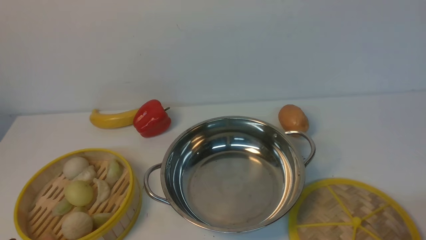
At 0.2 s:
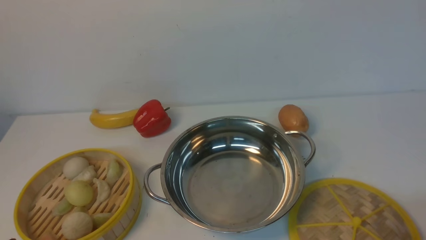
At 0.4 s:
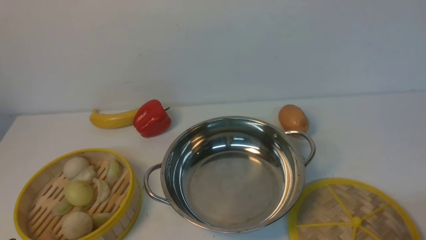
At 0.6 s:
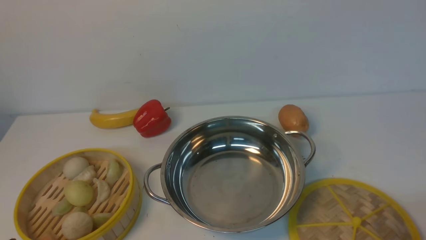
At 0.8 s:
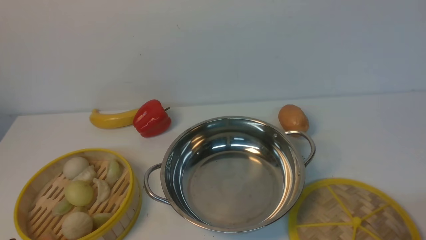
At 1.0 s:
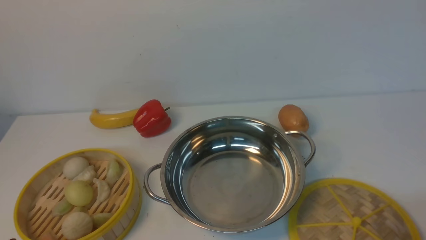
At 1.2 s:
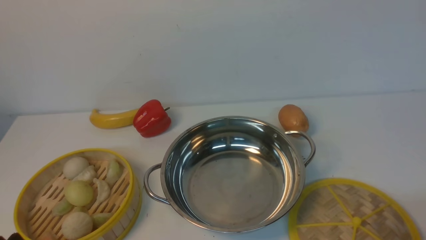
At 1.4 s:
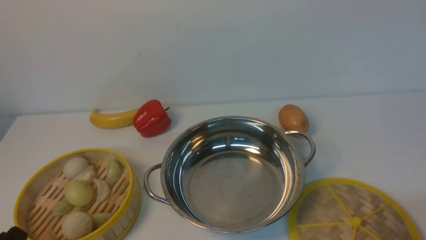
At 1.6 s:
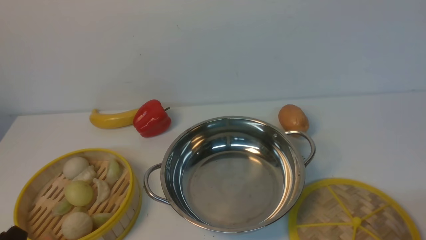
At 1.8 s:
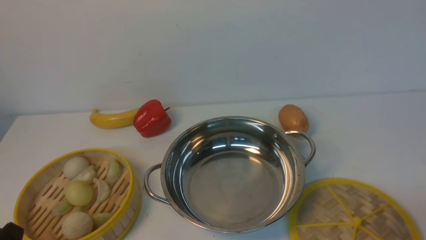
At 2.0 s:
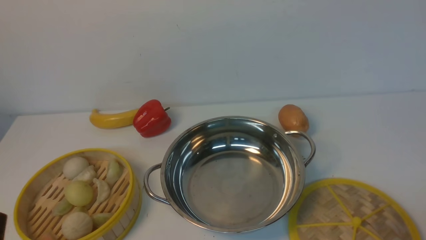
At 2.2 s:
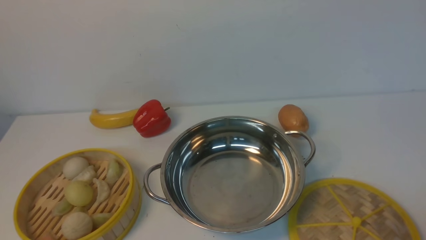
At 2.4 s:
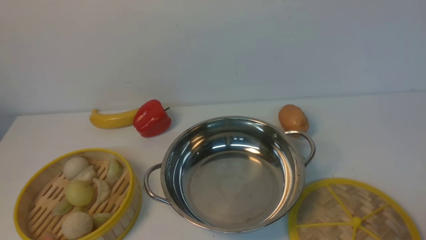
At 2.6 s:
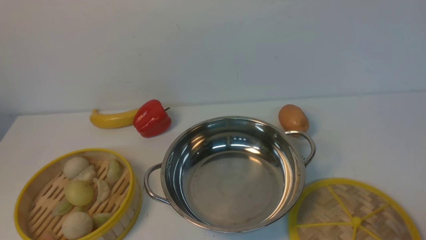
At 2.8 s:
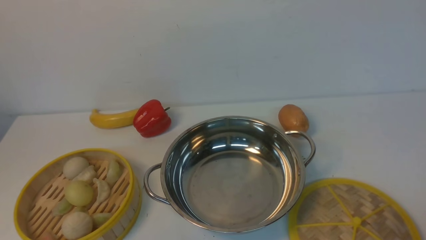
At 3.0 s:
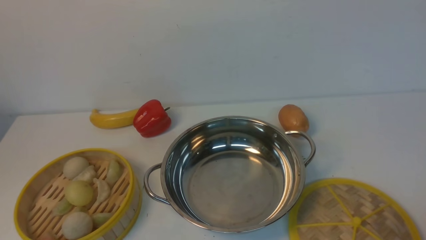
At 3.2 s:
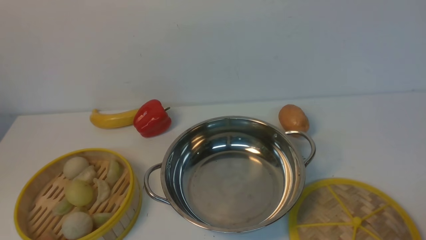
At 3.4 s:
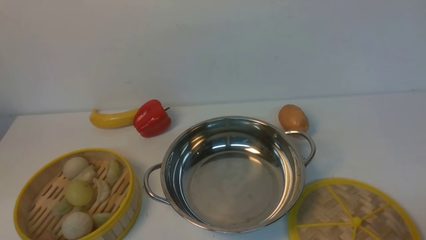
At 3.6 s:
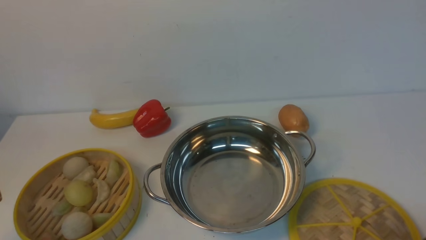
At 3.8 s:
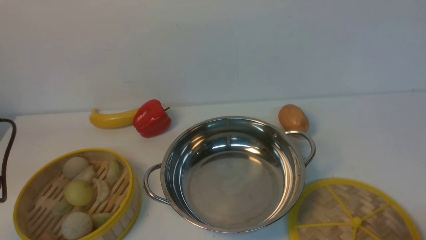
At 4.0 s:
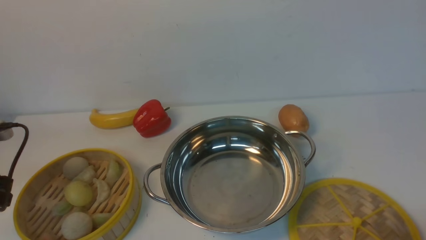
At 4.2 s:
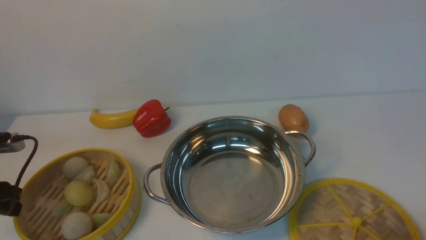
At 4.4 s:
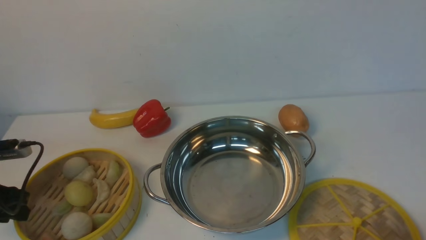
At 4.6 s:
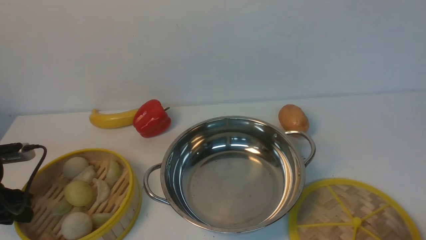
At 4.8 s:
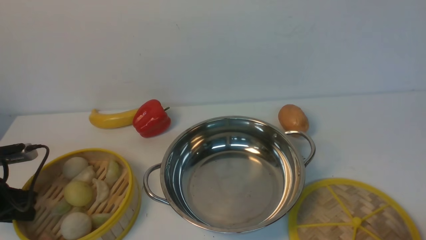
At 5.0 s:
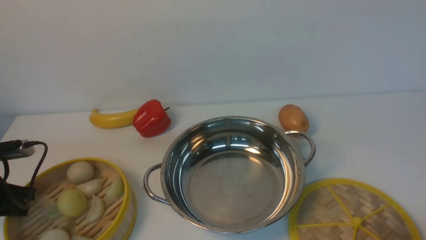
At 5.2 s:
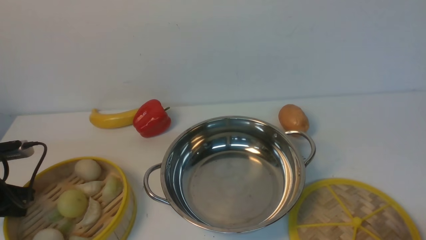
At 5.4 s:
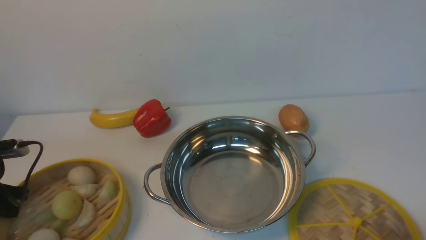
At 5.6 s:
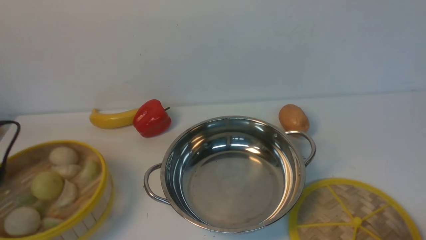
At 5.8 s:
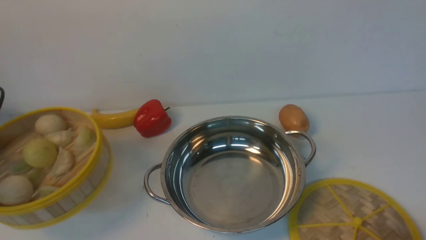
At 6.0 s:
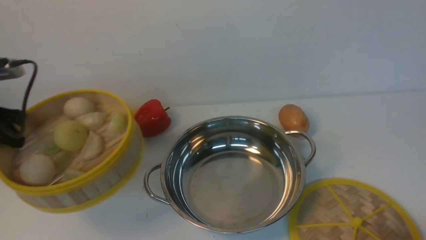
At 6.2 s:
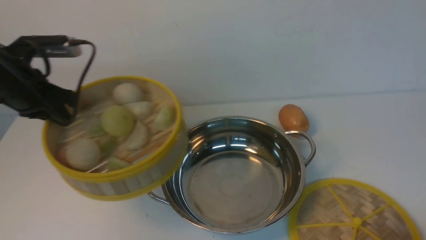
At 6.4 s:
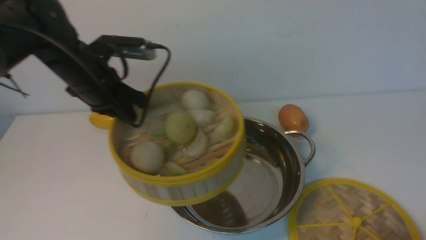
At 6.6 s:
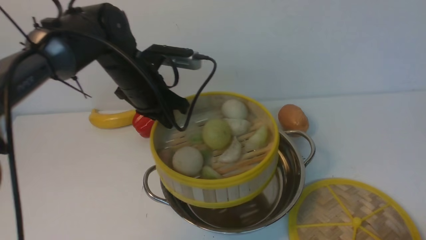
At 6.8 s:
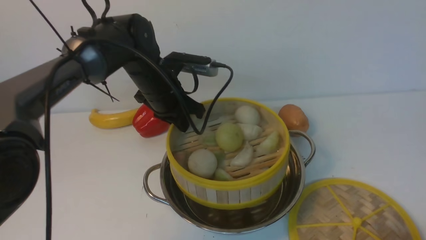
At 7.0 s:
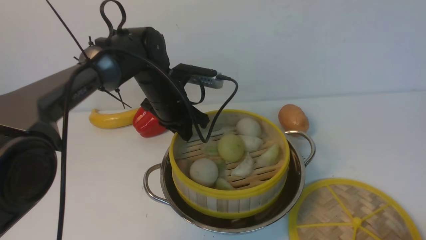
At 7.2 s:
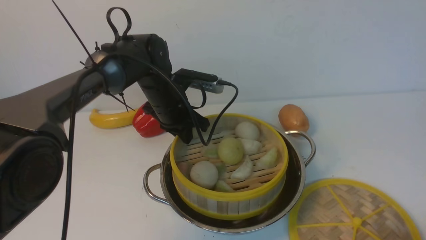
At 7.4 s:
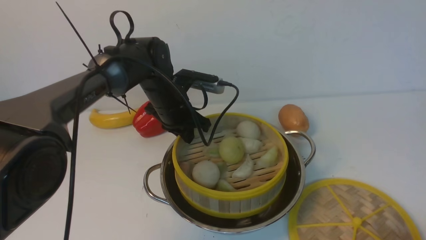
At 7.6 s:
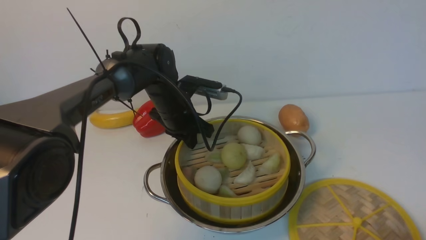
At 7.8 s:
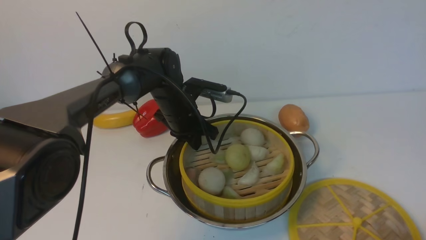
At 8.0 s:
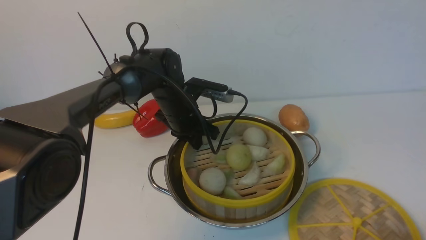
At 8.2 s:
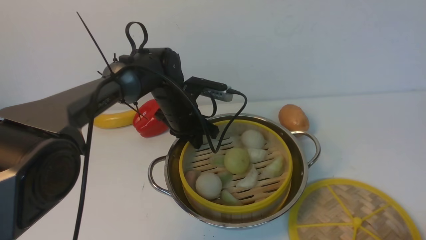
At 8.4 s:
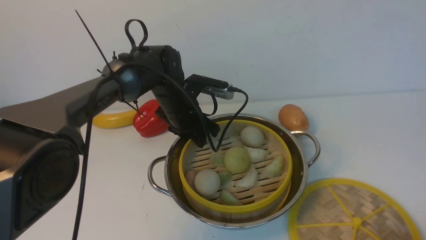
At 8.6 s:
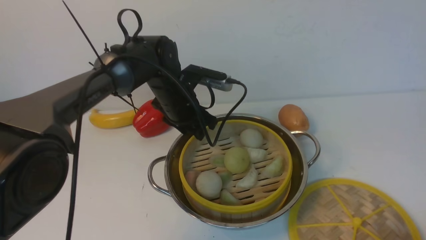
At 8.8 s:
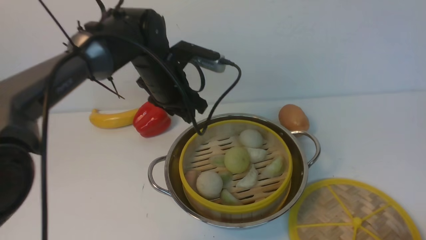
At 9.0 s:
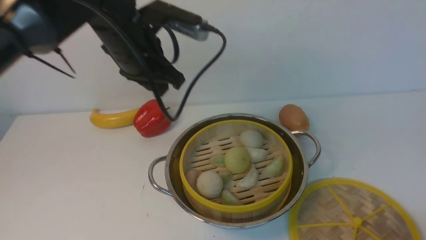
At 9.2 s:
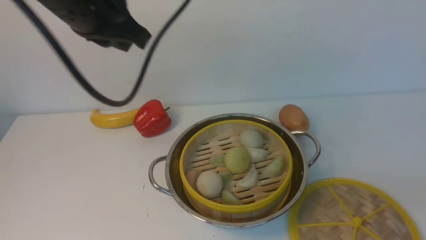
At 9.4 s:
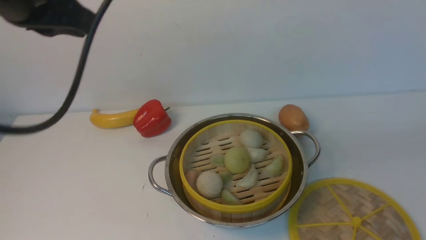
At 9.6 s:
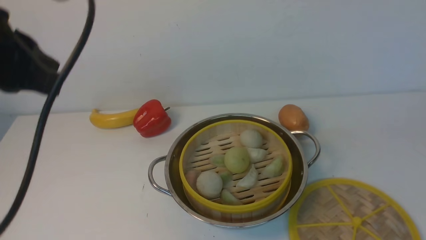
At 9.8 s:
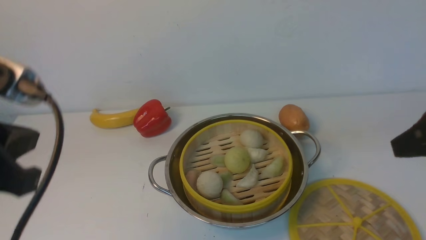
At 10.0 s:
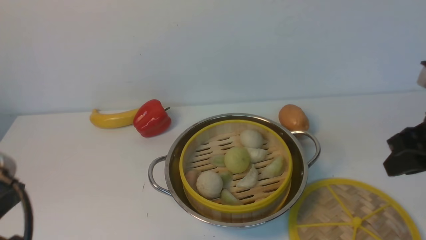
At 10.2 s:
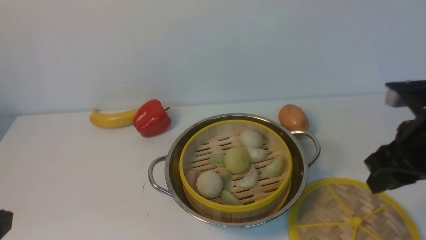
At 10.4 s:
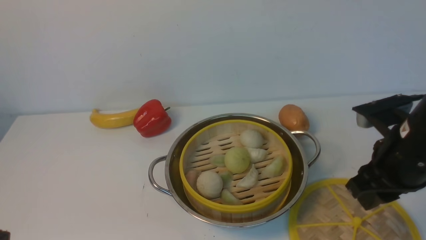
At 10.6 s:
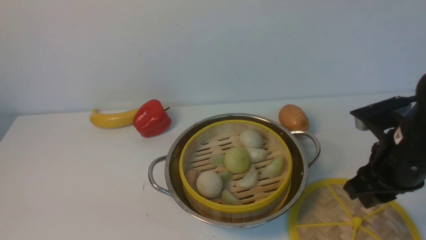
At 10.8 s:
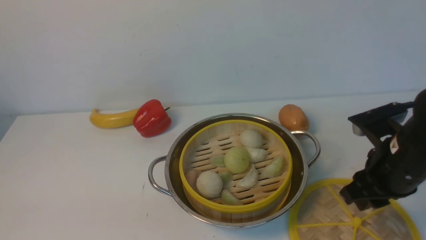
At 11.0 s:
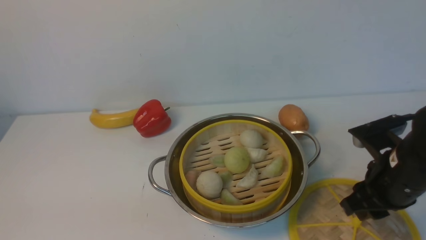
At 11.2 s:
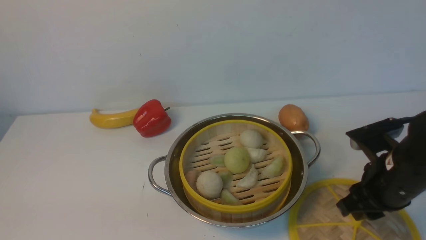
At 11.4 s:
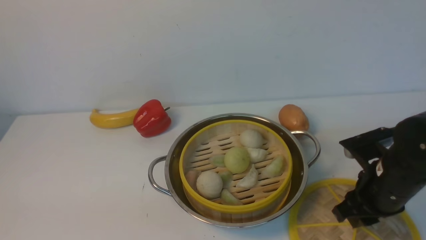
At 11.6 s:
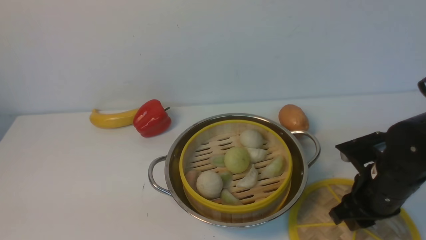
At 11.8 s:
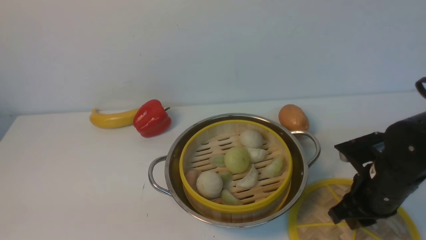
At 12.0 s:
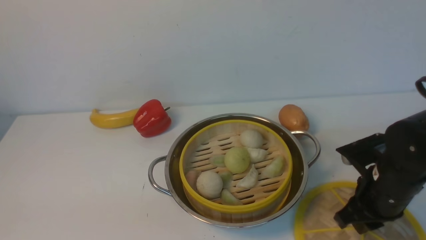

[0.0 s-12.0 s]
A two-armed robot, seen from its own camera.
Task of the whole recording: place the steamer in the pot on the white table, and put the lid on the steamer.
Step, 0.0 to 5.8 s: use the left arm to lift the steamer closest to it.
Step, 6.0 to 8.8 s: use the left arm to put the steamer into the iron steamer pot in the middle.
3.0 to 4.4 s: The left gripper moves downward, forward and to the left, about 25 cm, and opens up.
4.4 to 6.0 s: The left gripper shifts roughly 15 cm upward and forward, and closes up.
6.0 to 7.6 s: The left gripper heads to the right, covering about 25 cm.
7.6 to 9.0 s: The left gripper heads upward, covering approximately 20 cm, and opens up.
9.0 to 10.4 s: The left gripper shifts approximately 35 cm backward, and closes its fingers; the right gripper shifts about 20 cm forward.
10.4 to 12.0 s: The right gripper is displaced downward by some 10 cm.

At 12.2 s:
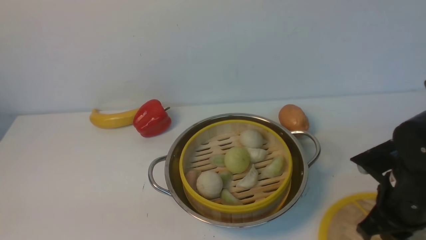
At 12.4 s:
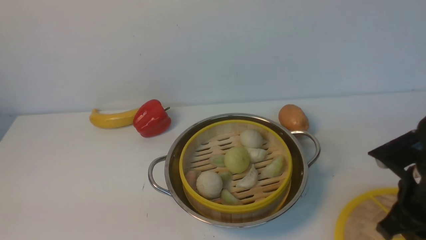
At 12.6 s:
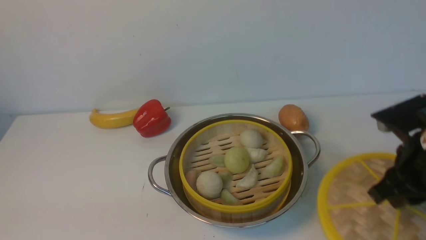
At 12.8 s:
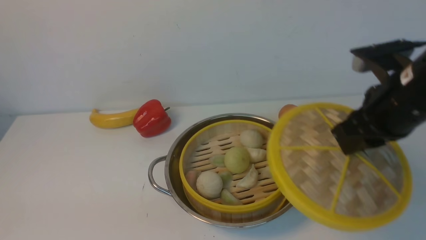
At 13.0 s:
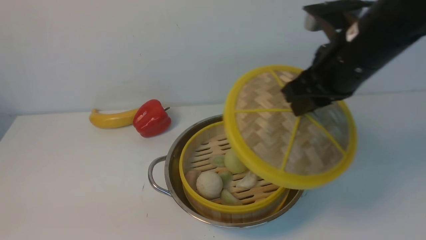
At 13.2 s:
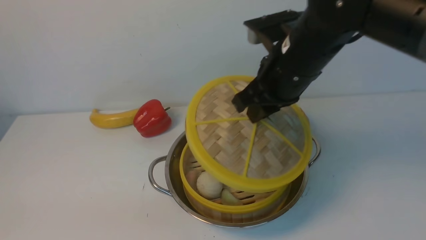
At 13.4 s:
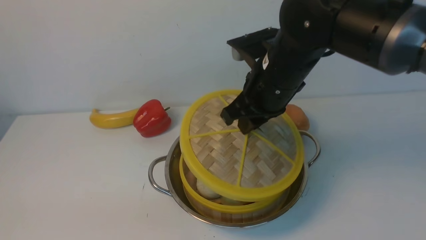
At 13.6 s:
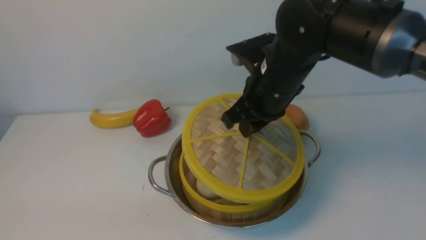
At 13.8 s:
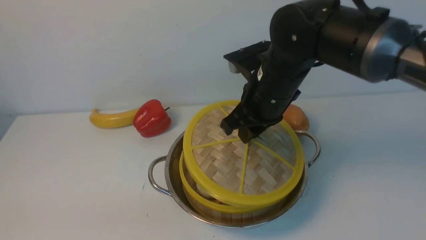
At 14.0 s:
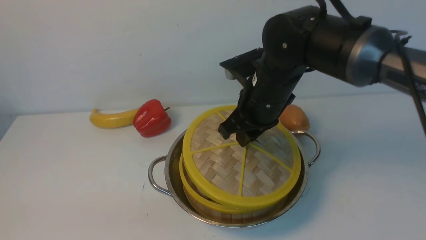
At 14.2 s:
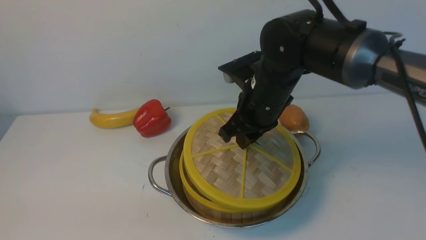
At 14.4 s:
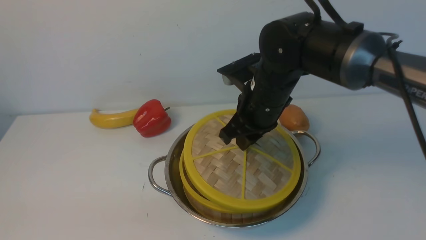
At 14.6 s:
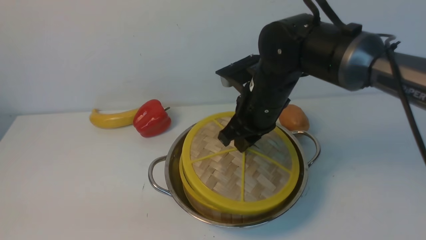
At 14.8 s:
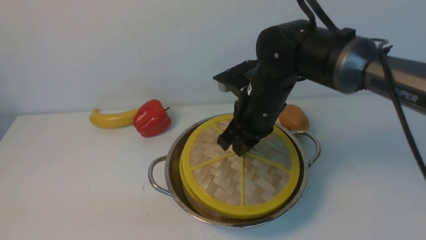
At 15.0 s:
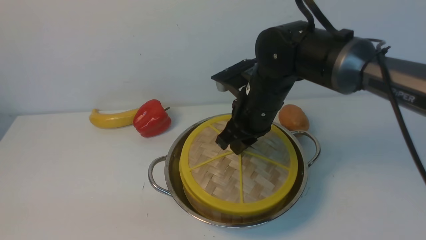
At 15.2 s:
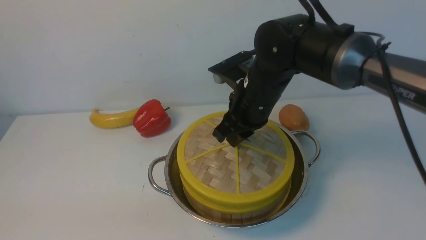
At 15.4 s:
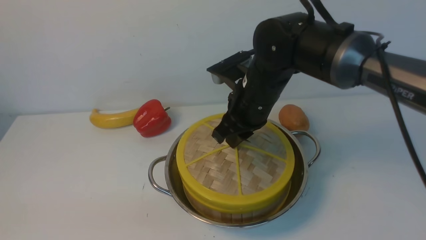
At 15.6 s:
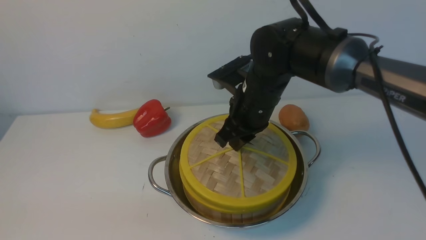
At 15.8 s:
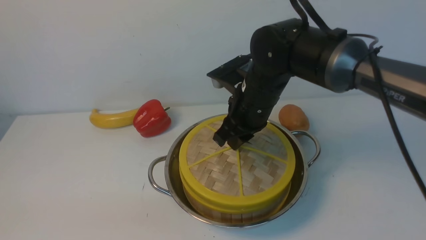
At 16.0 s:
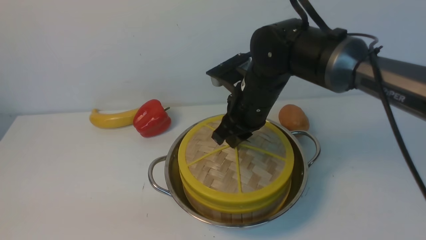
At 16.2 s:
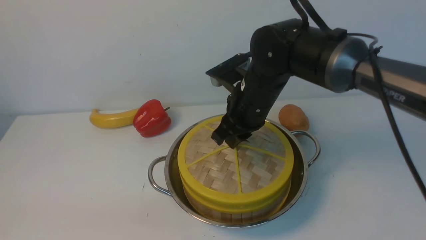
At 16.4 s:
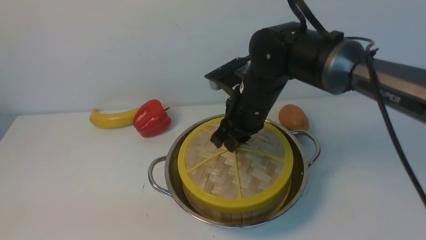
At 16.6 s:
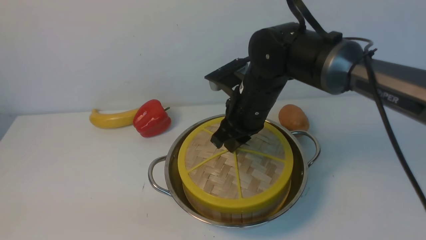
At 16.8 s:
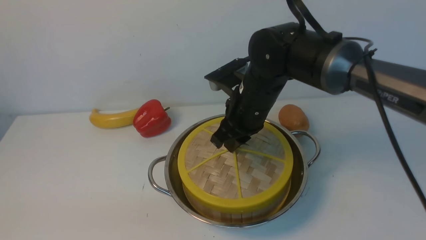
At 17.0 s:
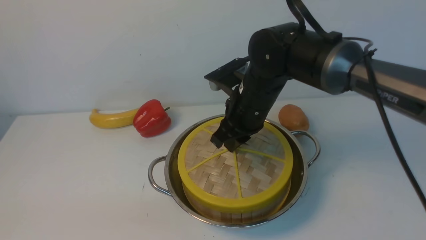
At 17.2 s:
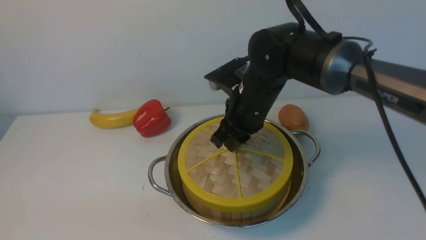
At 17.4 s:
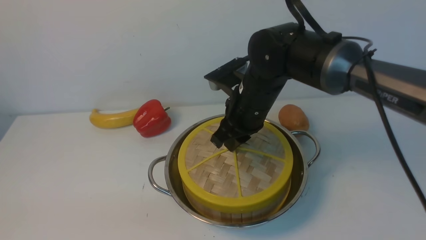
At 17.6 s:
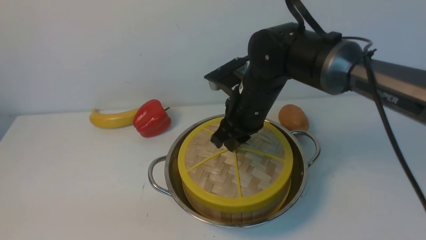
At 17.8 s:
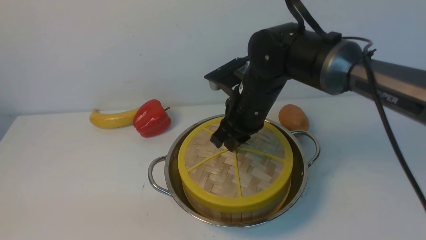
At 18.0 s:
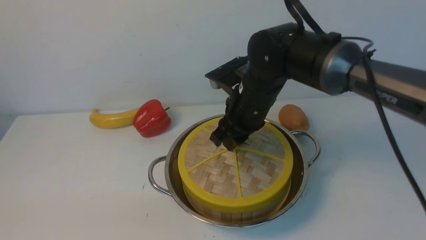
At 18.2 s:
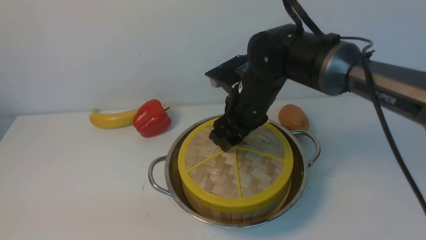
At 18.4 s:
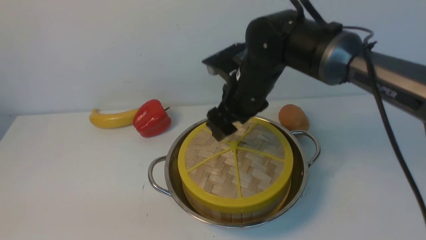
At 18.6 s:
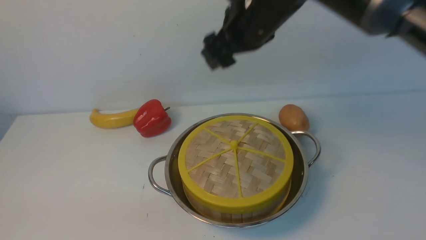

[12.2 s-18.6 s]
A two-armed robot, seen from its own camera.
Task of the whole recording: place the steamer in the pot on the white table, and put the lid on the steamer.
Step, 13.0 to 18.6 s: use the right arm to place the steamer lid on the steamer.
12.2 to 13.8 s: The right gripper moves to the left, forward and upward, roughly 20 cm.
13.8 to 17.0 s: The grippers make only small movements.
17.0 to 18.6 s: The right gripper is displaced upward by some 15 cm, and opens.
